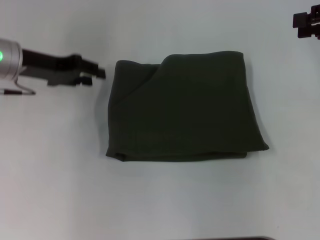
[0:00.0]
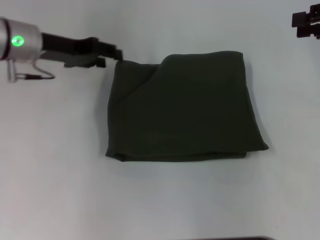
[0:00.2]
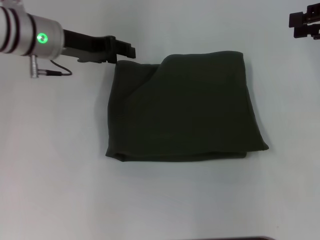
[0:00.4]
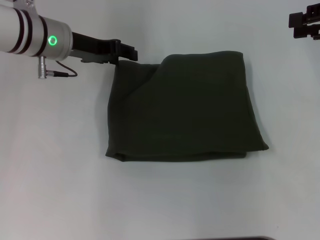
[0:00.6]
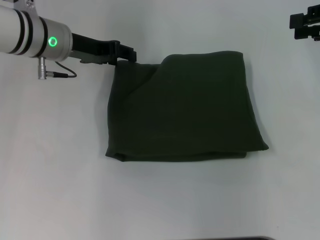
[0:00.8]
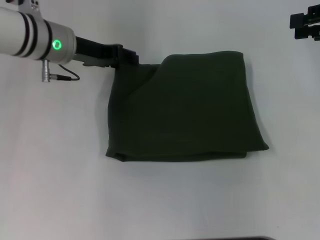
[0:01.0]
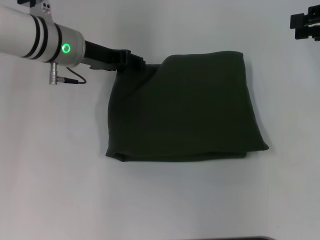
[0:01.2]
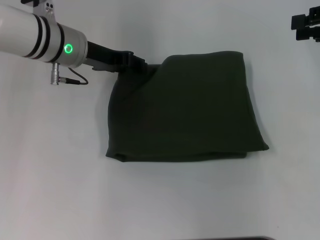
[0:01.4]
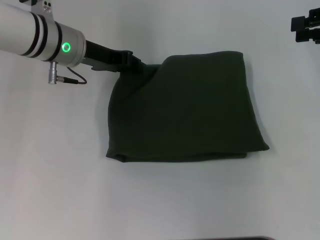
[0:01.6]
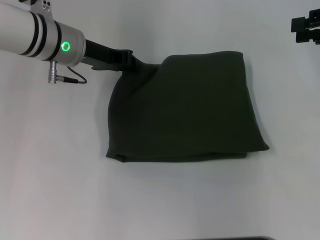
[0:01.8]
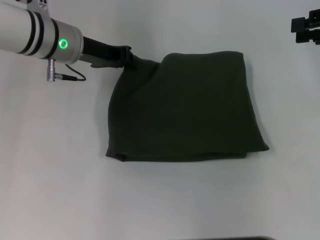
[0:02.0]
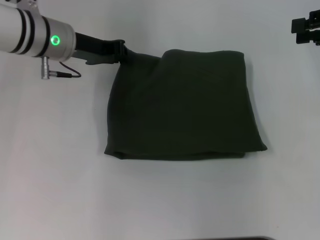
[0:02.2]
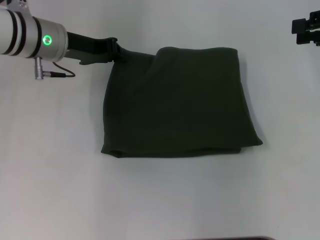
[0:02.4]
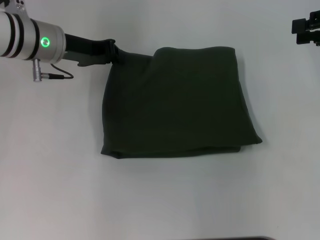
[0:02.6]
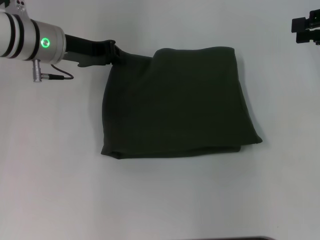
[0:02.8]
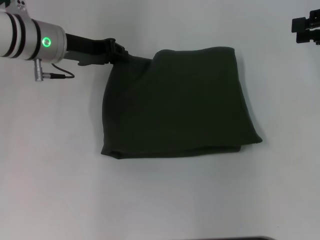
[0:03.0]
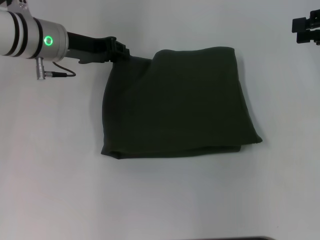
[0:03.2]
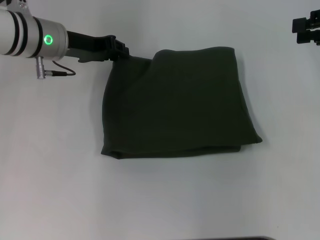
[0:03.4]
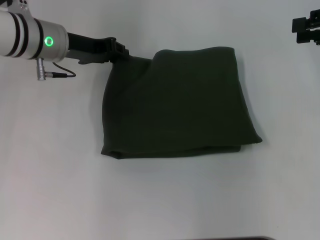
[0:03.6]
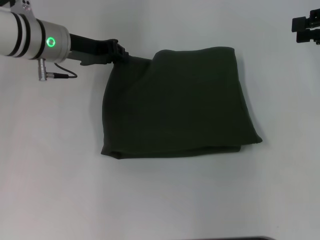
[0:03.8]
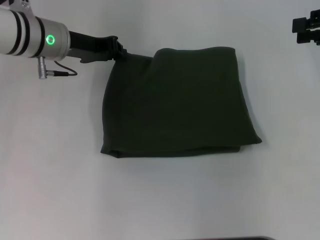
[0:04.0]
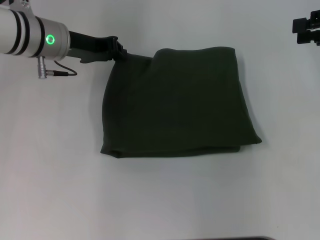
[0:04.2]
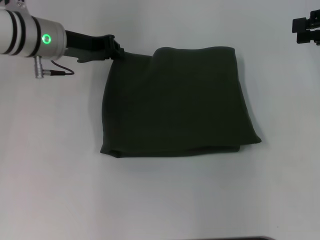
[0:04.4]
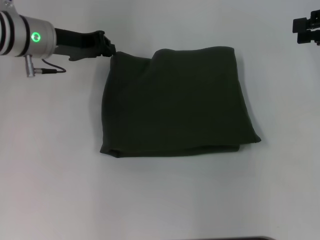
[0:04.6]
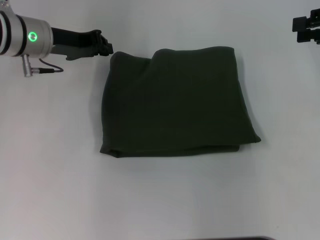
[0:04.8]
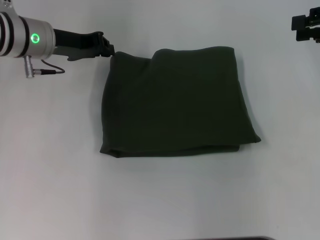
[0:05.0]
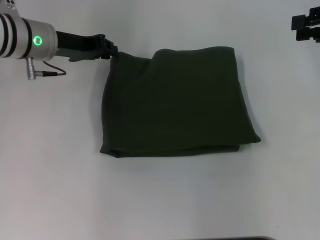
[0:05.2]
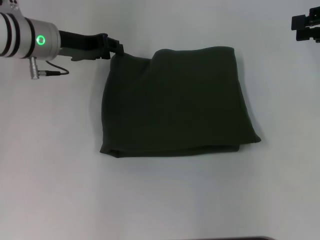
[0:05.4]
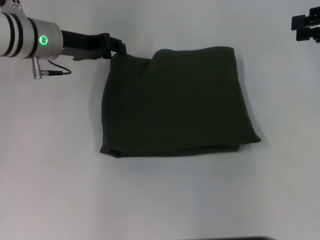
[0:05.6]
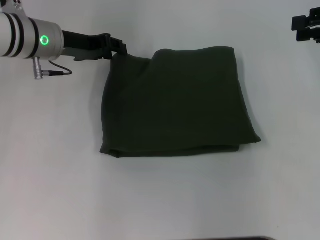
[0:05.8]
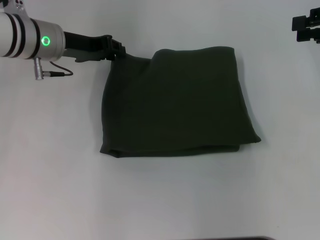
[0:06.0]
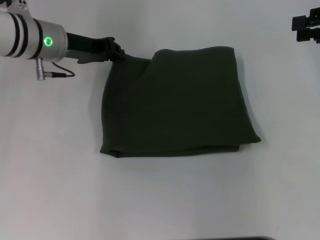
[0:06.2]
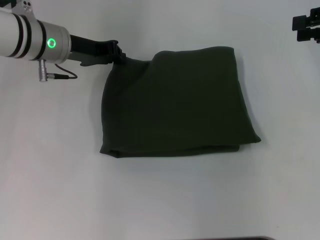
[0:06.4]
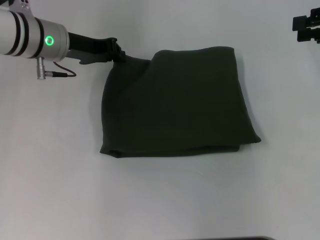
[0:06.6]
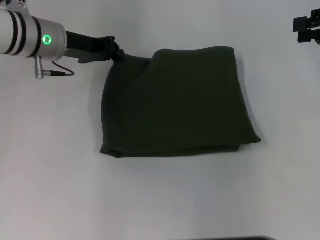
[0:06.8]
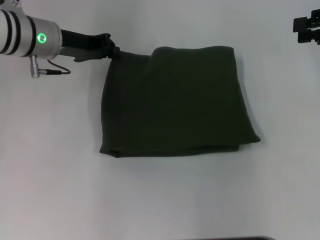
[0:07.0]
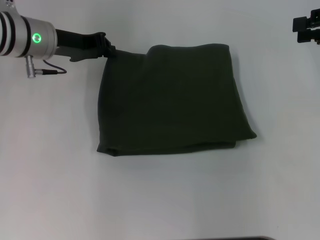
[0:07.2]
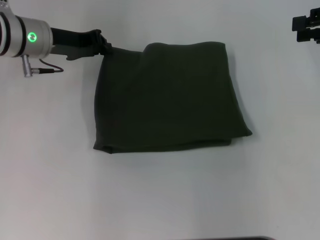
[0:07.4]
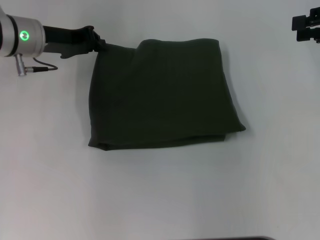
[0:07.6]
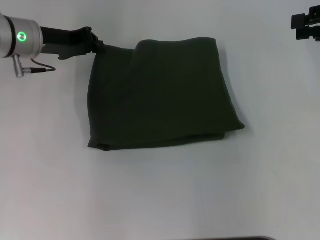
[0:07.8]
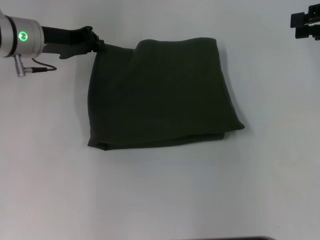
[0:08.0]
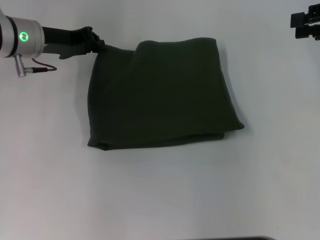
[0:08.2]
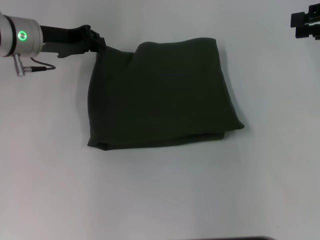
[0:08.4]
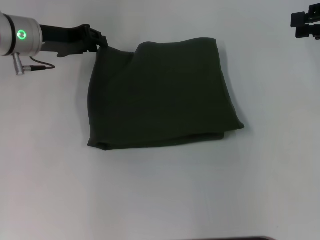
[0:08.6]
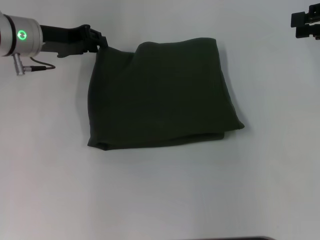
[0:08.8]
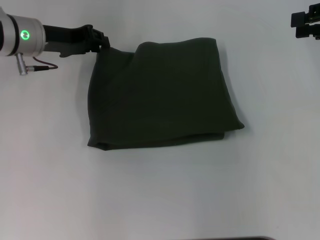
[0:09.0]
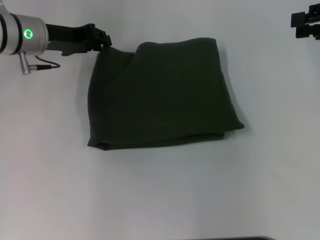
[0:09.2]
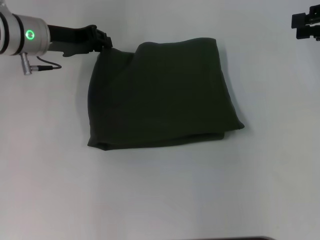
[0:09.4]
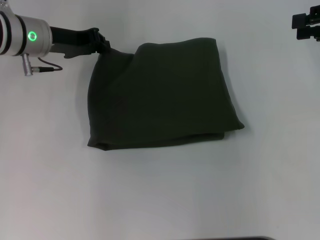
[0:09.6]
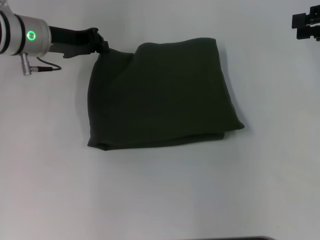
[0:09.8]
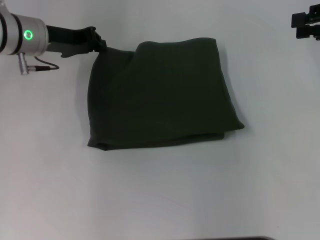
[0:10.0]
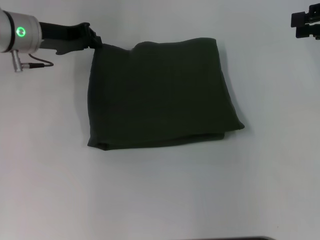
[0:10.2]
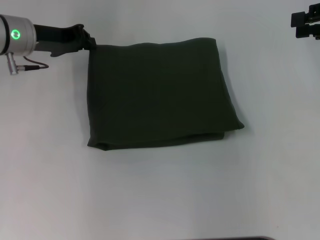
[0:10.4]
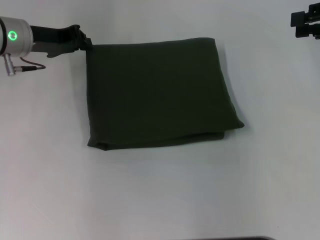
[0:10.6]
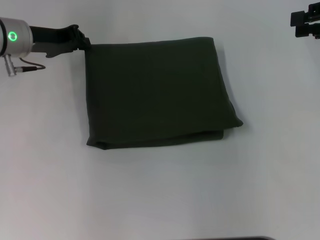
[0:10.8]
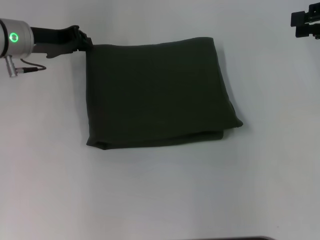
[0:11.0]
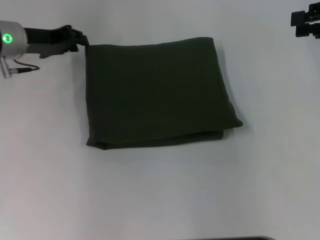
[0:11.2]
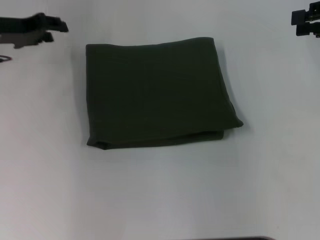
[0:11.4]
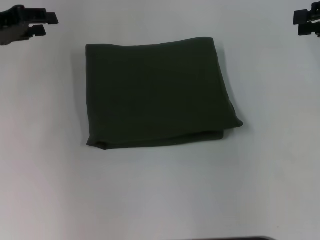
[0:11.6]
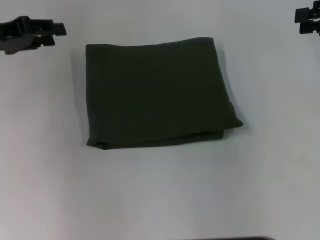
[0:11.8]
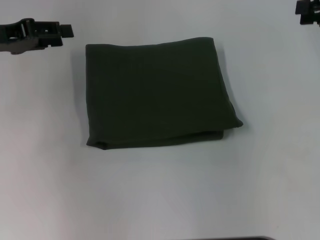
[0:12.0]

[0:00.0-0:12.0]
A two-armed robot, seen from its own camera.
0:00.0 to 0:01.6: The left gripper travels to the right by approximately 10 cm.
0:01.6 to 0:03.0: The left gripper closes up.
0:03.0 to 0:04.4: Both grippers stay about where they are.
0:04.4 to 0:06.0: The left gripper opens up.
0:06.0 to 0:07.6: The left gripper closes.
0:07.6 to 0:10.4: The two grippers keep their place.
0:10.4 to 0:12.0: The left gripper travels to the left and backward by roughly 10 cm, and opens its fingers.

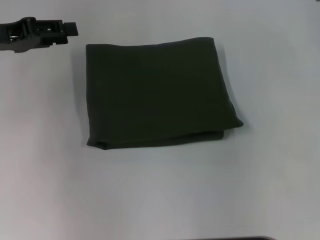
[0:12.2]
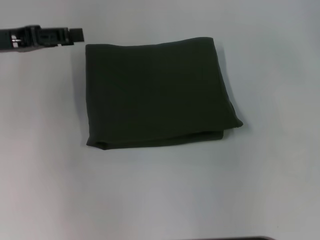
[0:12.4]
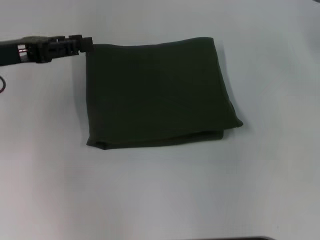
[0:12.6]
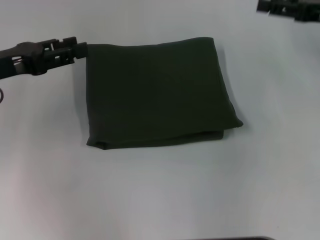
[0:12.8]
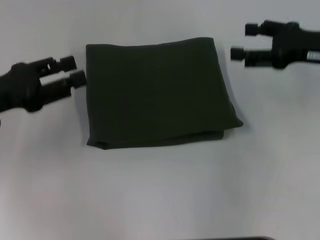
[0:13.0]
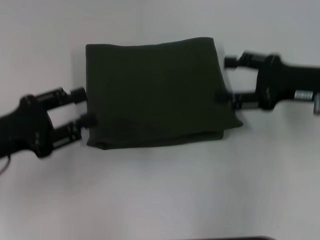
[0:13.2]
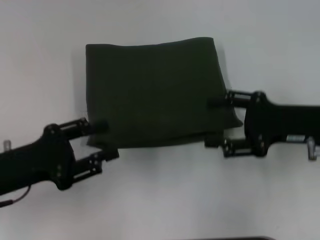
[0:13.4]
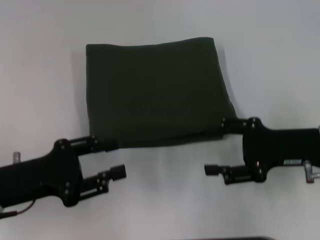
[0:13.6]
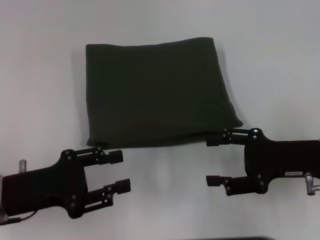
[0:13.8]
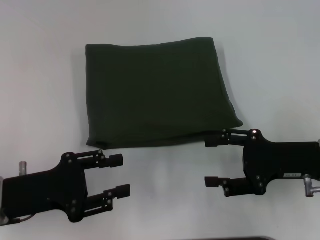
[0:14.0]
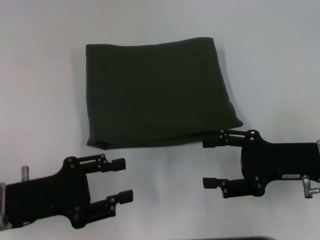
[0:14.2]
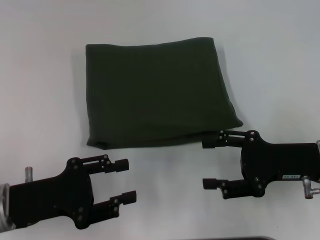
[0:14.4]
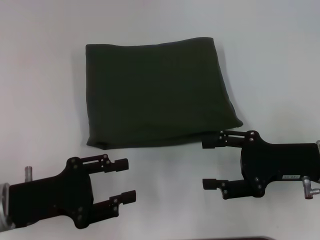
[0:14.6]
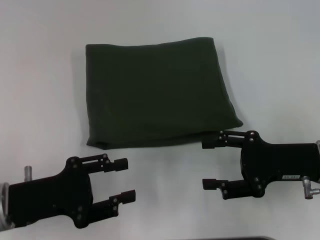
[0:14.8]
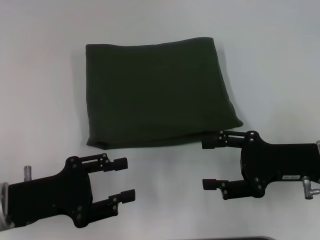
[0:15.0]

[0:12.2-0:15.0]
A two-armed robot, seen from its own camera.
0:12.2 to 0:13.6: The left gripper shifts approximately 20 cm backward and downward. Meanwhile the right gripper moves downward, backward and to the left, roughly 20 cm, and opens.
0:13.6 to 0:15.0: The grippers make only small movements.

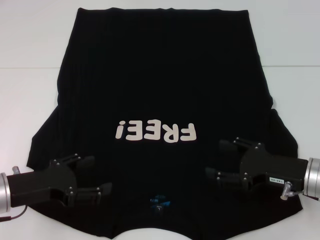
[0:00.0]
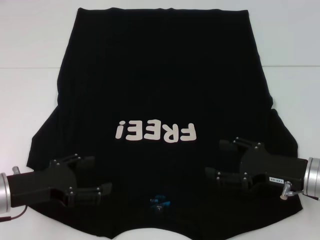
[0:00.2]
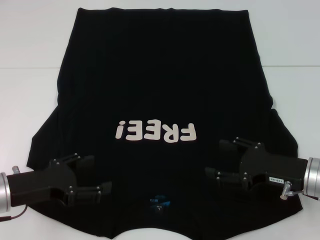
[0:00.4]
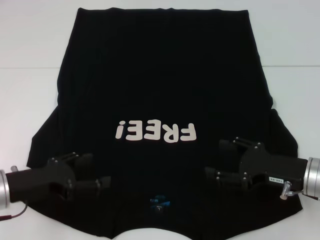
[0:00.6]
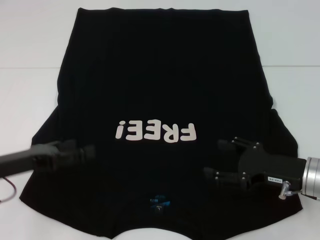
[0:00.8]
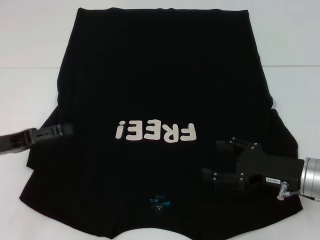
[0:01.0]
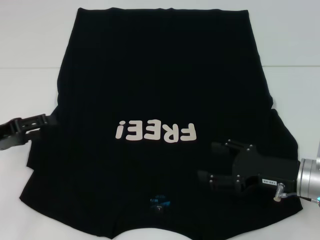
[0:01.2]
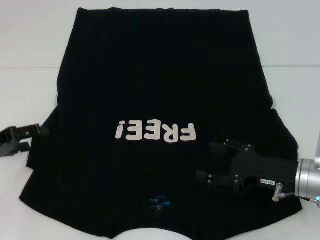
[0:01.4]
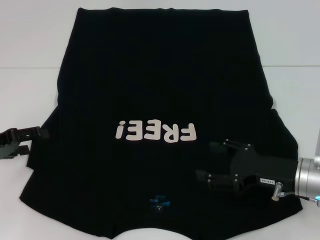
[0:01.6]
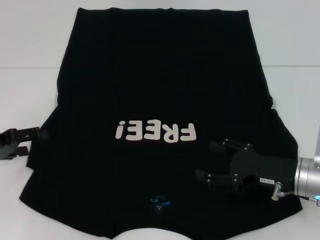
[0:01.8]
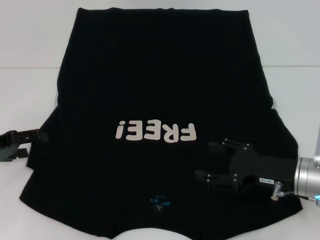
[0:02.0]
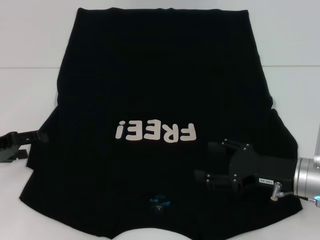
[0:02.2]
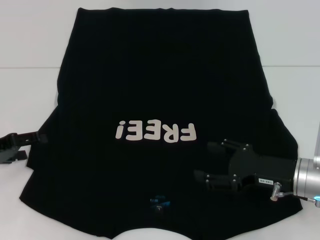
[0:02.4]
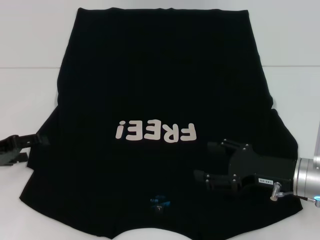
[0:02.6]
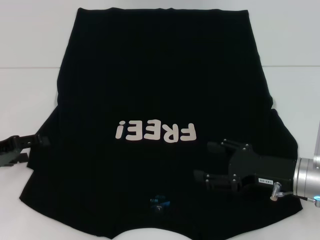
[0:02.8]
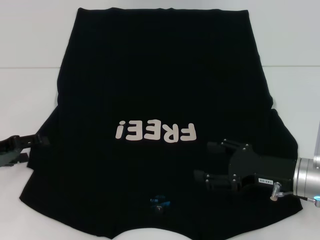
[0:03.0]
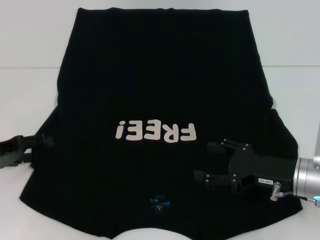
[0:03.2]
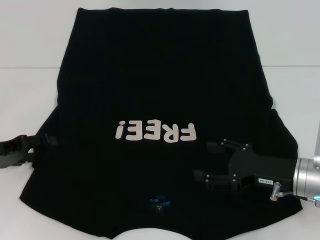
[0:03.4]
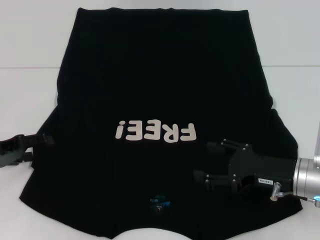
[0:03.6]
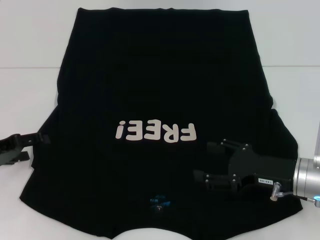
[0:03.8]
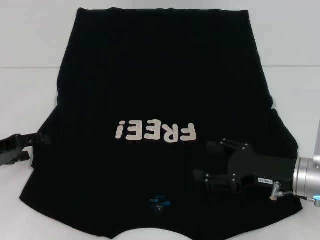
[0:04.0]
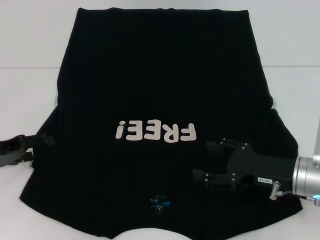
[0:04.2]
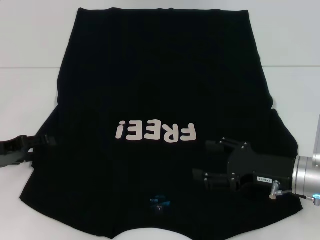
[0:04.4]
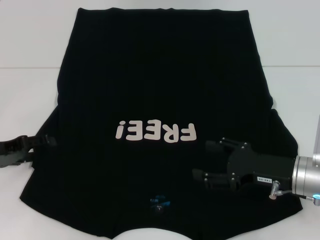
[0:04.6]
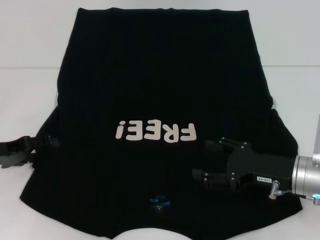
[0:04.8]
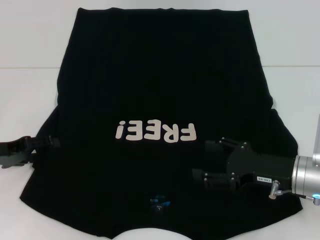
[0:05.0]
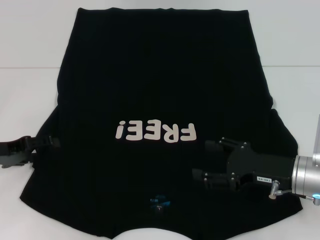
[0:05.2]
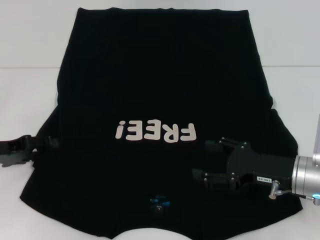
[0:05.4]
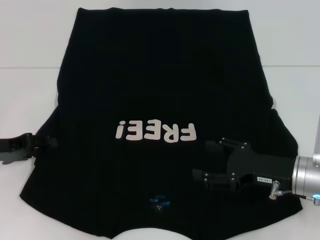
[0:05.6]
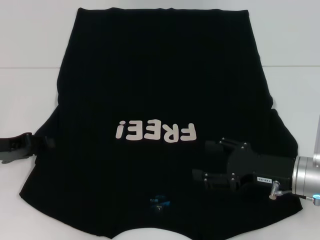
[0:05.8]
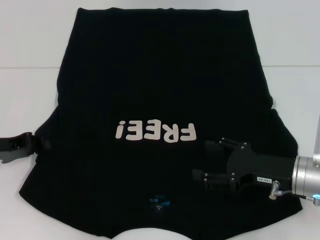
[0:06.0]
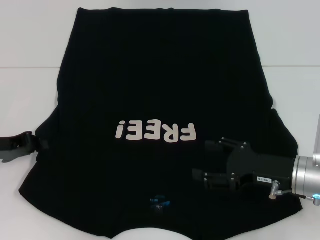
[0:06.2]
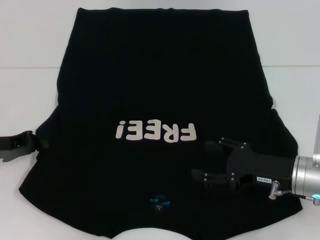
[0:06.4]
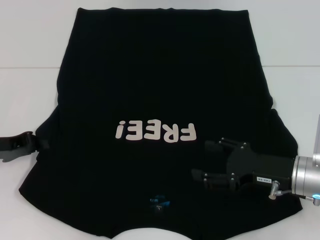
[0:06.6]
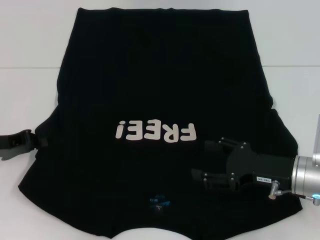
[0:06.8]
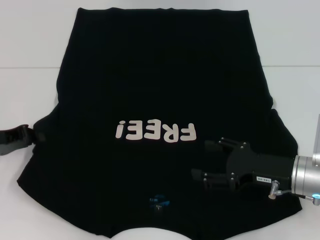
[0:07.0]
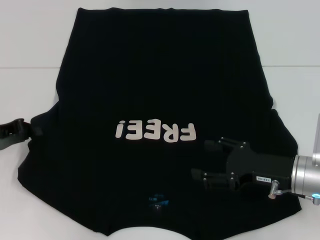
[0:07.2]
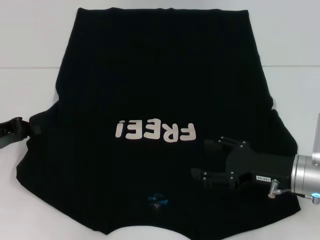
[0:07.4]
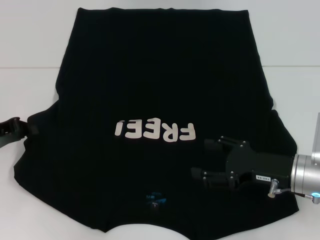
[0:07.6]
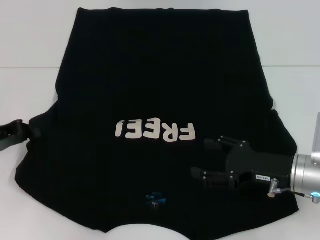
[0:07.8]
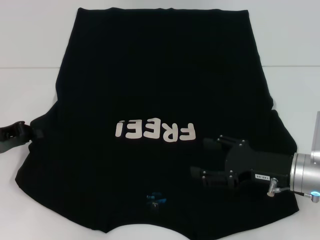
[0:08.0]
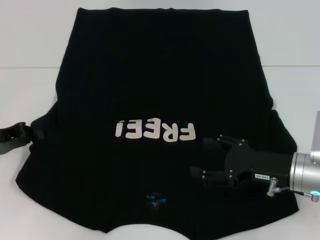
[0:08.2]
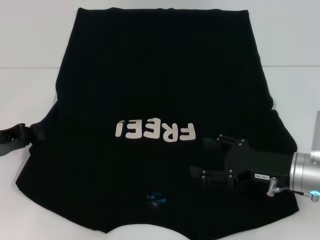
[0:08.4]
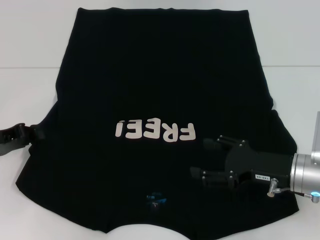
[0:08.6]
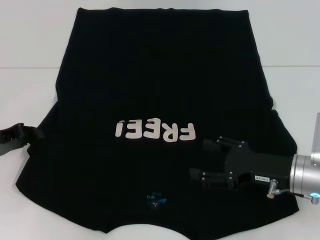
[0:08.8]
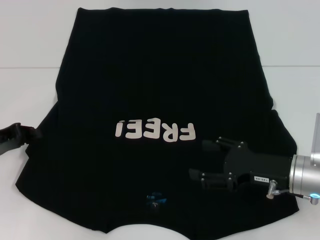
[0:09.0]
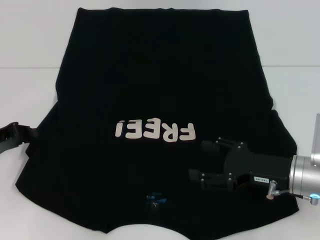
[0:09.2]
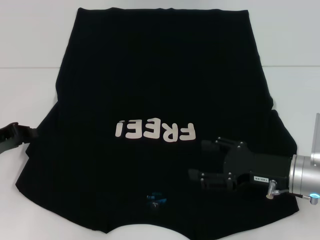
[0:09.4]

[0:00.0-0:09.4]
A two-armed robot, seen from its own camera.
0:00.0 to 0:01.6: The left gripper moves to the left and forward, about 10 cm.
0:01.6 to 0:03.2: The grippers make only small movements.
0:03.2 to 0:04.8: Both grippers stay about where they are.
0:04.8 to 0:06.2: The left gripper closes up.
0:06.2 to 0:09.4: The grippers stay close to where they were, moving slightly.
